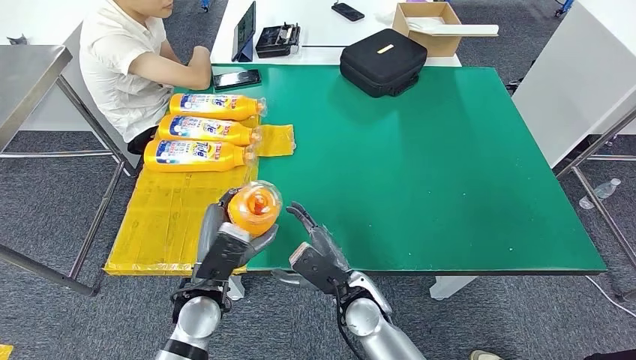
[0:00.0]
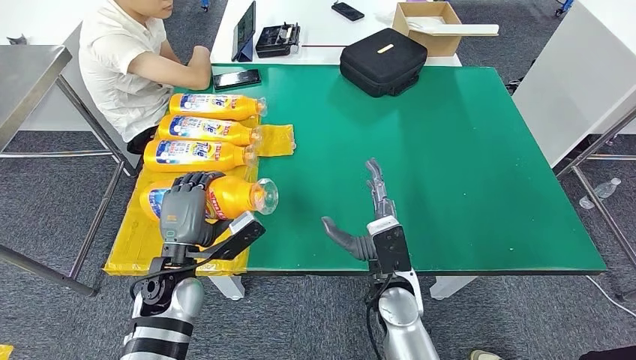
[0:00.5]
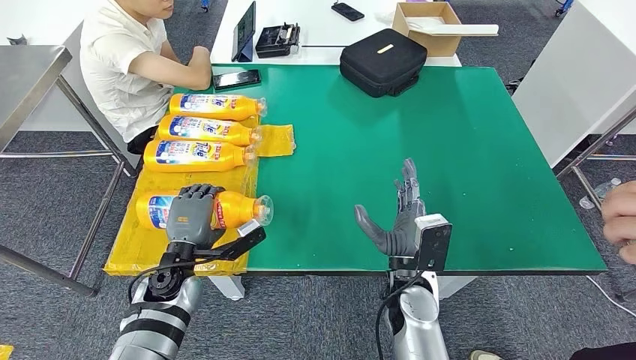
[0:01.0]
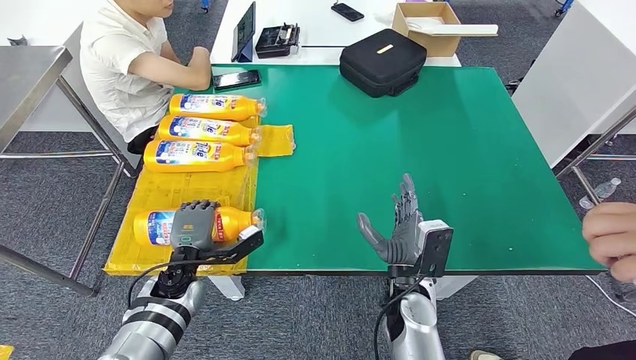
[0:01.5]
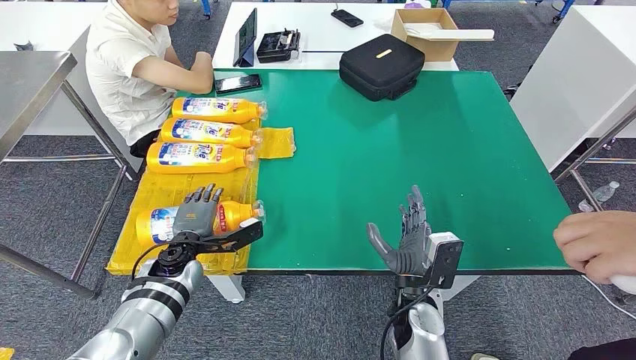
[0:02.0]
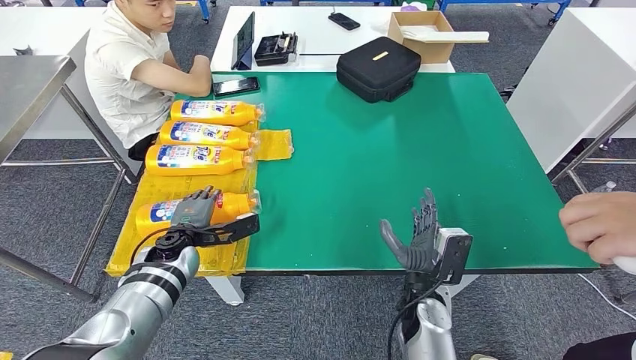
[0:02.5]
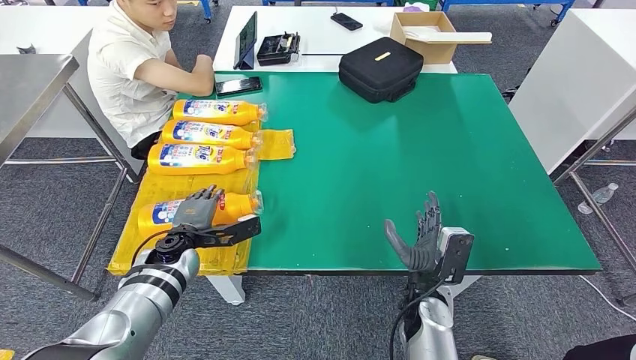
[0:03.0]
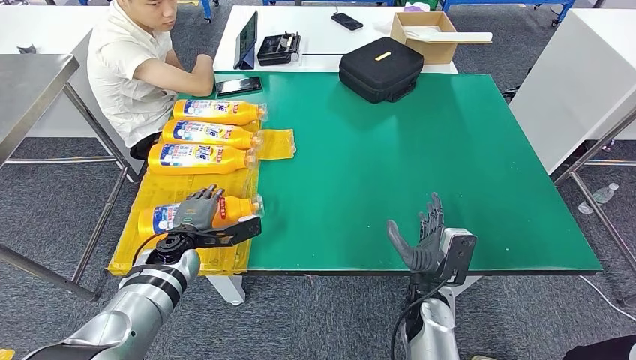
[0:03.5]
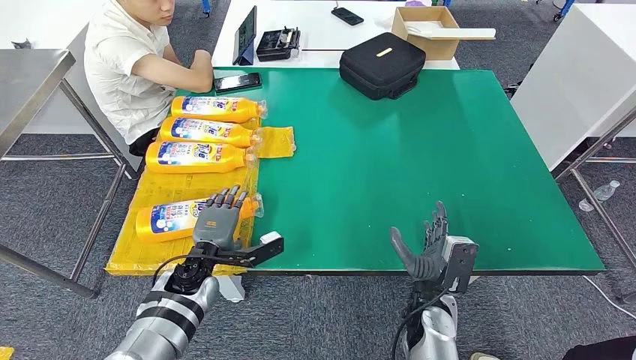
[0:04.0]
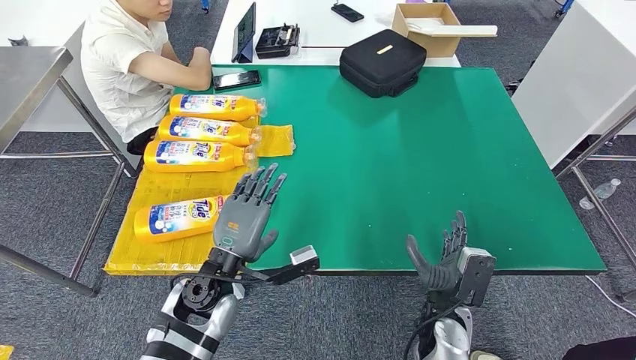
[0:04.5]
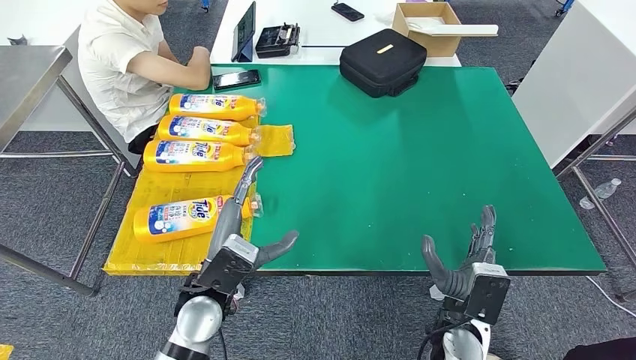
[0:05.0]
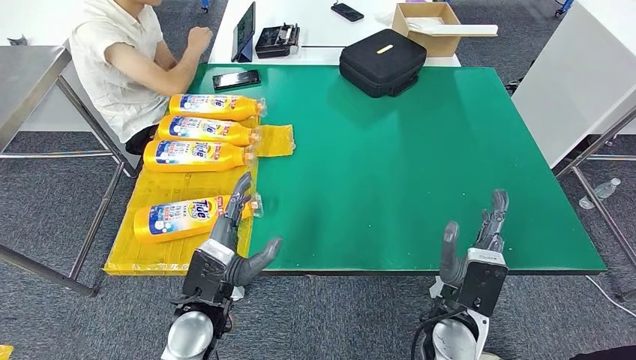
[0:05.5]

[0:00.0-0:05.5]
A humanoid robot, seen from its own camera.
Step, 0:00.0 to 0:05.5: Flip the fast-moving consumer goods bottle to the front side.
0:02.0 to 0:03.5: The hands make only small movements.

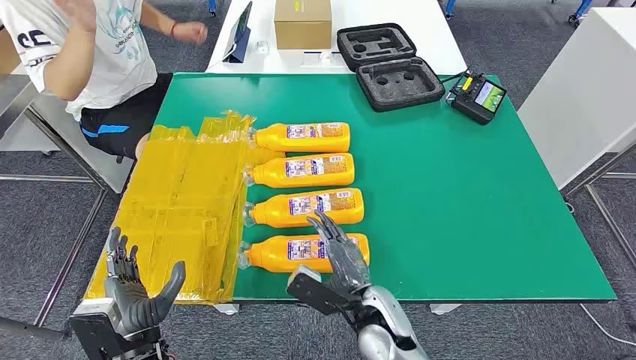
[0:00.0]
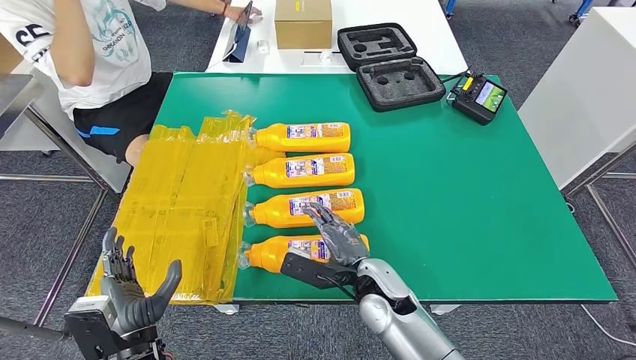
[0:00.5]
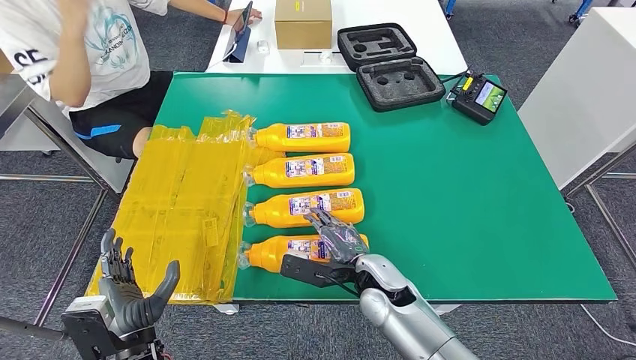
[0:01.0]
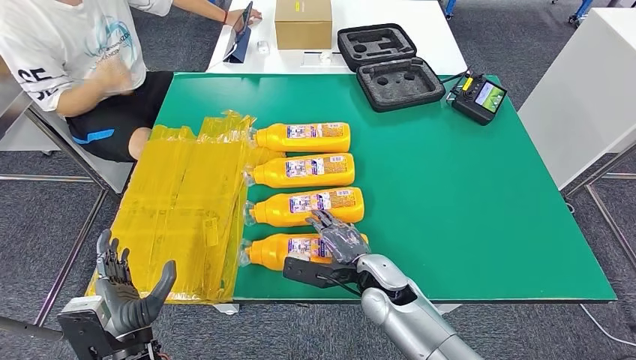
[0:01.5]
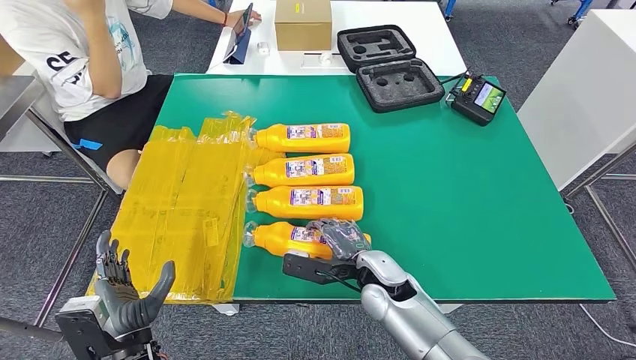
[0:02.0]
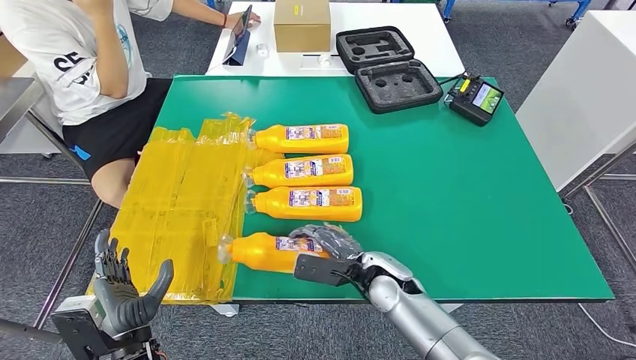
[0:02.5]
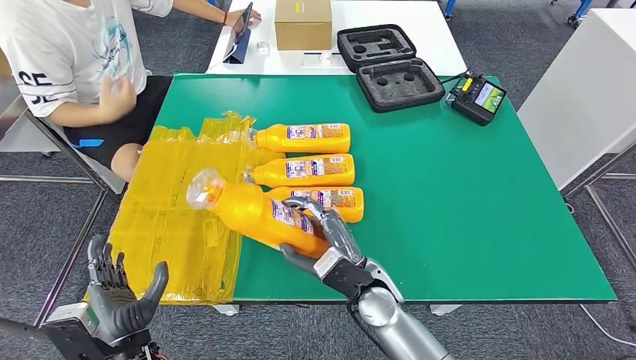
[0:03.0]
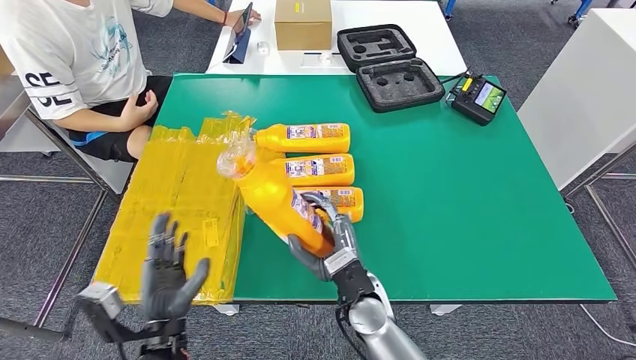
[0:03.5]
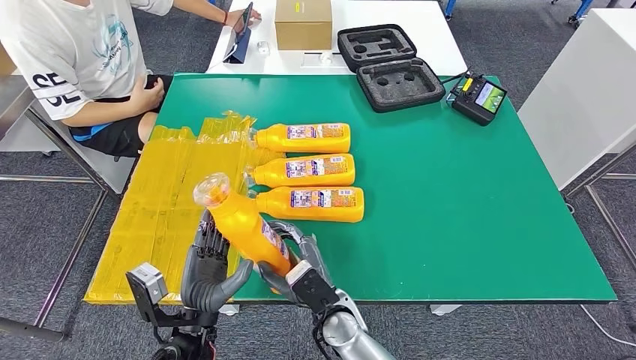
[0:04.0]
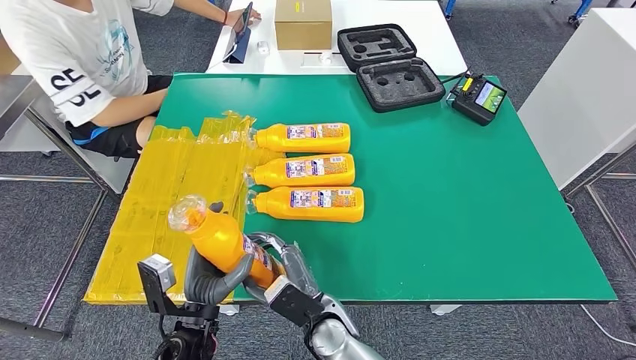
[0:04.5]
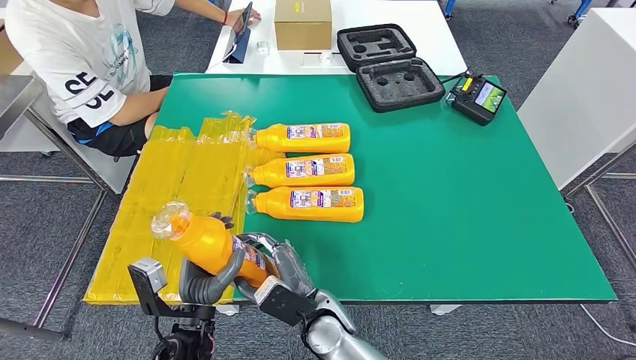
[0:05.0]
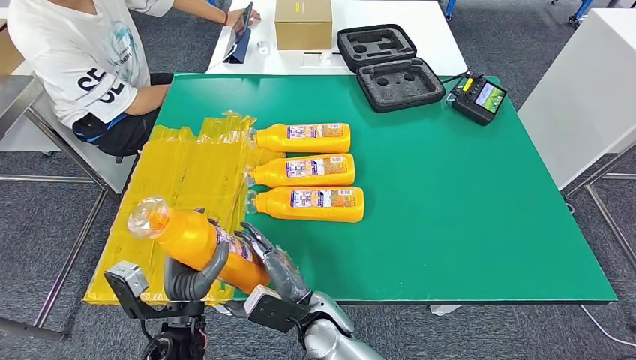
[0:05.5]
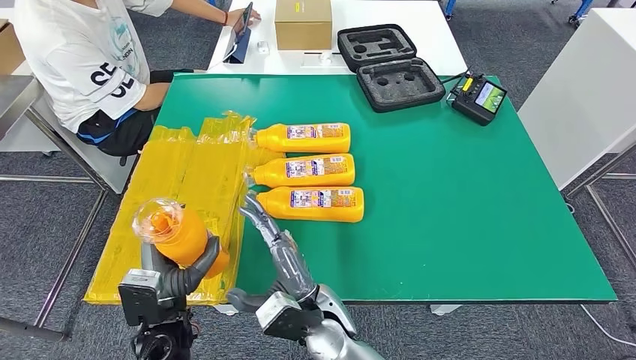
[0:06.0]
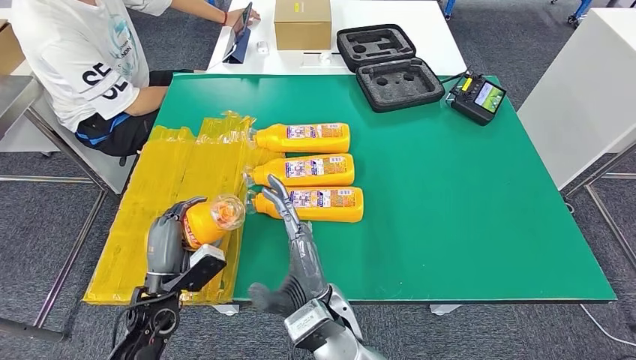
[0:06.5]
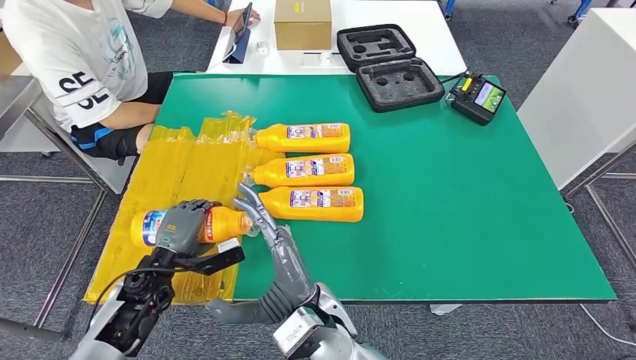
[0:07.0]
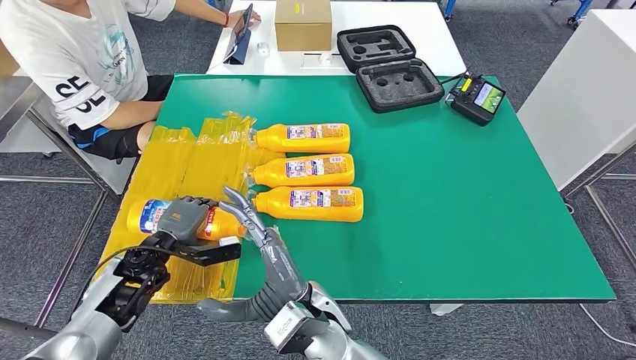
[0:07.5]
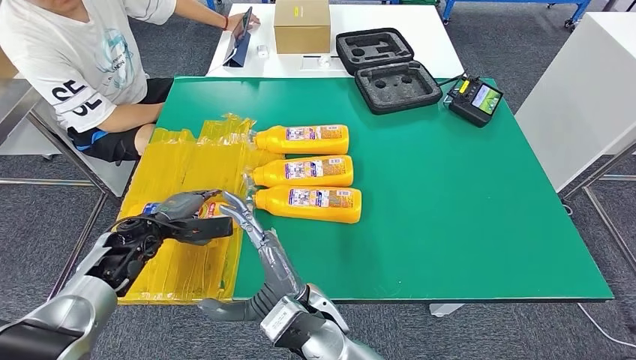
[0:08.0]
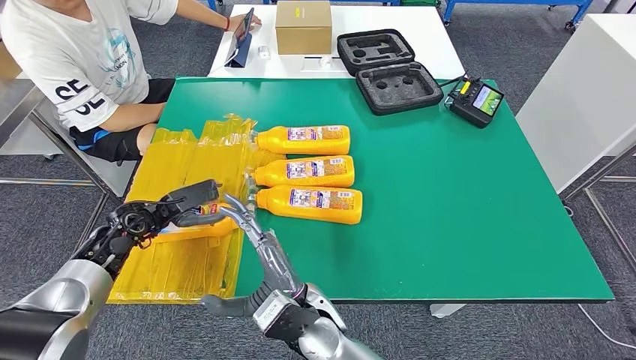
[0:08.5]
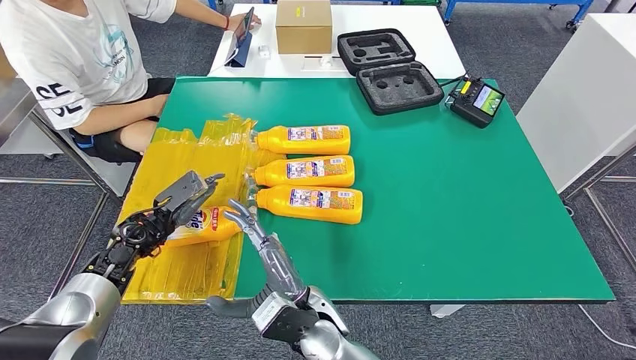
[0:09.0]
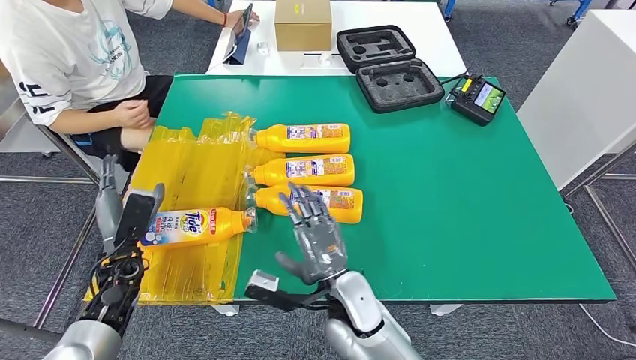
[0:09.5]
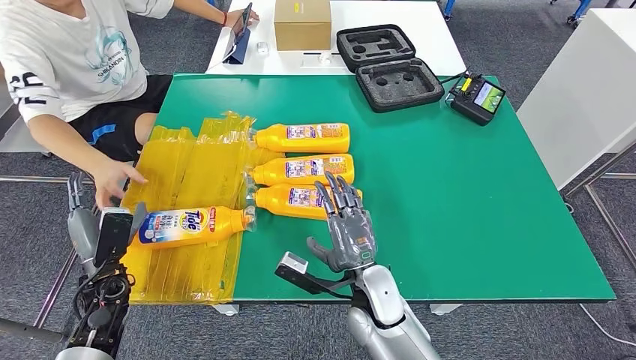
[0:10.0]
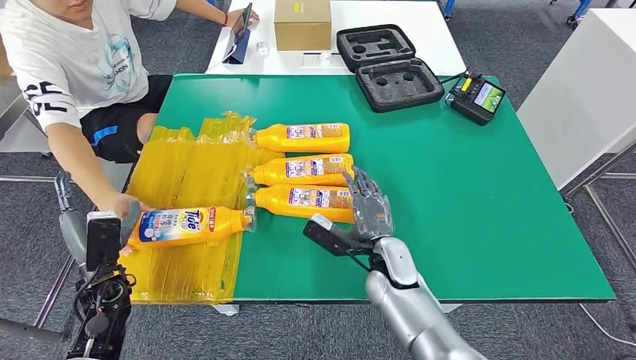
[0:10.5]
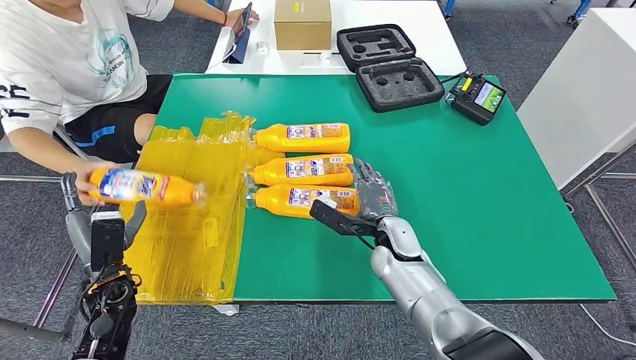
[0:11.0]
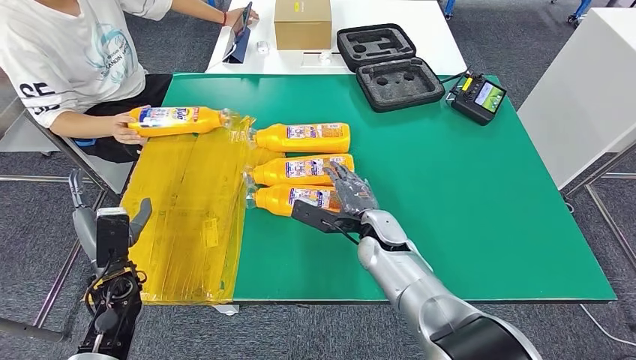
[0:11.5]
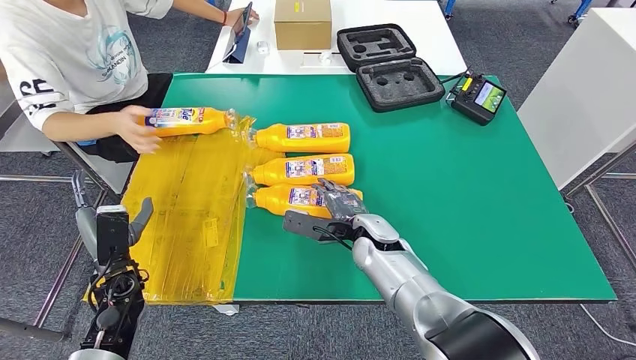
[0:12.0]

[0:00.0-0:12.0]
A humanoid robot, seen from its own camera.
Step, 0:00.0 to 0:04.5: Take the fast-moving consumer goods bottle from the table.
Step, 0:06.5 to 0:09.5: Flip the fast-moving consumer goods bottle to the front side.
0:02.0 to 0:04.0: The left hand shifts some 10 cm to the right. Meanwhile the right hand shifts some 10 cm to the left and backward.
0:04.0 to 0:06.0: The right hand is displaced upward by roughly 5 cm.
0:10.0 to 0:12.0: The right hand is displaced forward by roughly 10 cm.

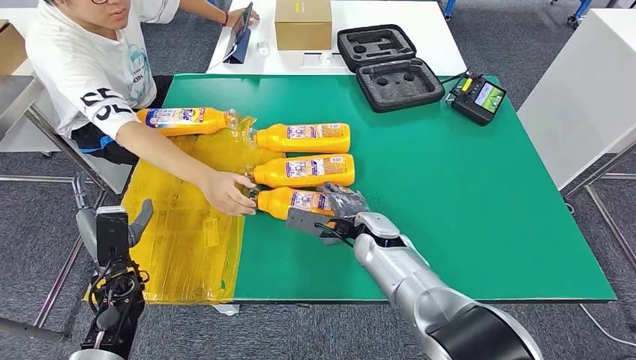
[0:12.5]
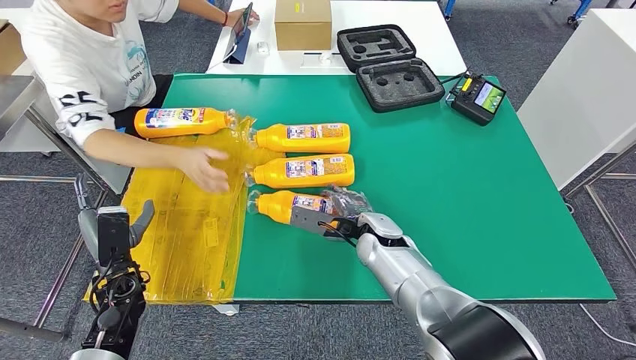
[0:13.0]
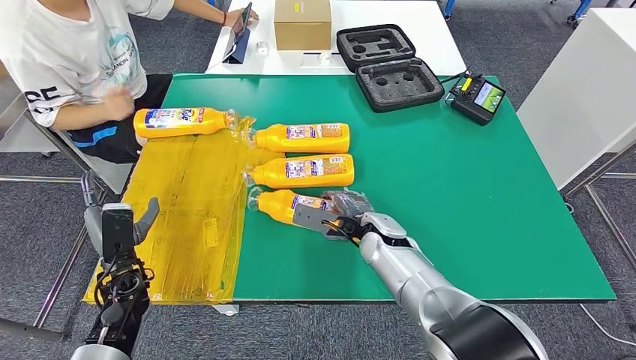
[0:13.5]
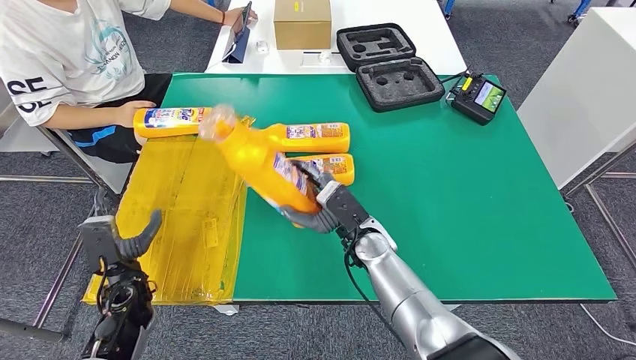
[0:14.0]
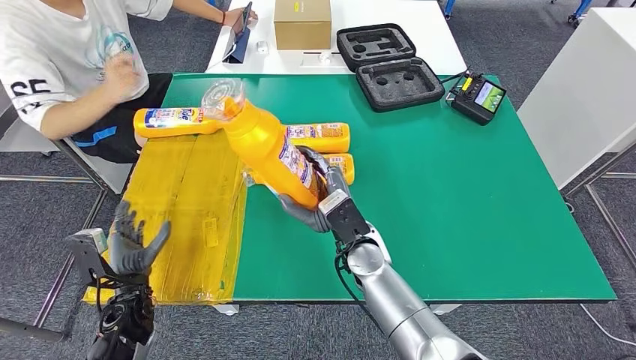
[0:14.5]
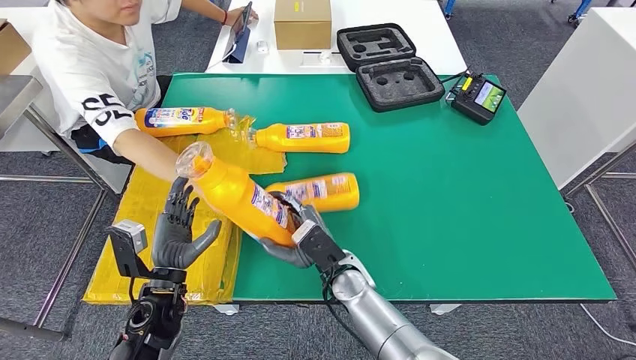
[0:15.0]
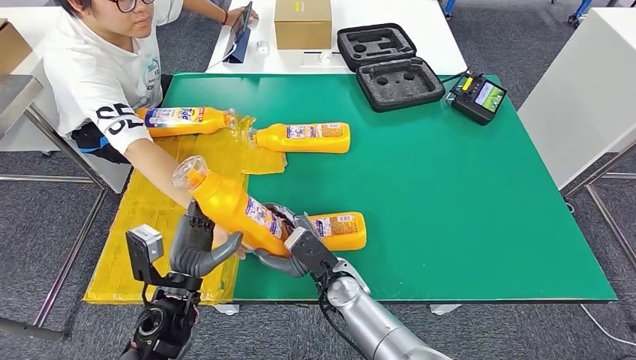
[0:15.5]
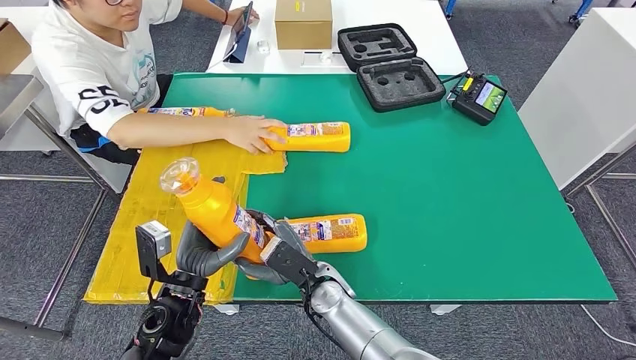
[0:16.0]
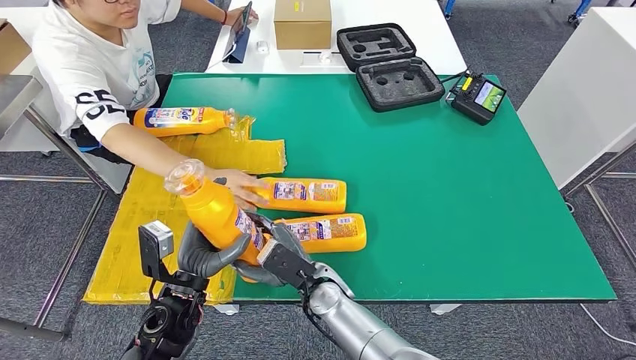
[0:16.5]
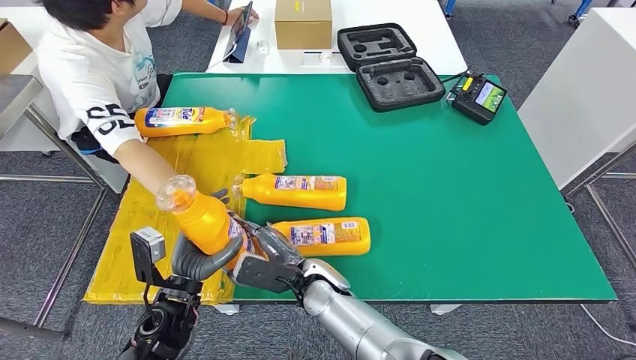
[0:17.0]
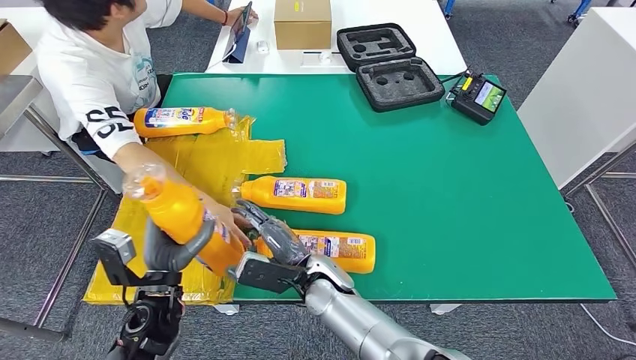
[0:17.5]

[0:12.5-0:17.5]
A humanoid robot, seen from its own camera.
Step, 0:13.5 to 0:16.0: Pick up the fast-moving consumer goods bottle from the table.
0:15.0 to 0:17.5: The right hand travels to the left by approximately 5 cm.
